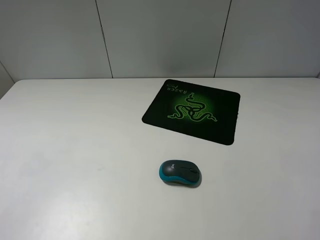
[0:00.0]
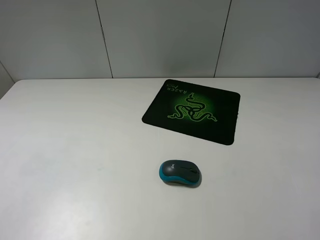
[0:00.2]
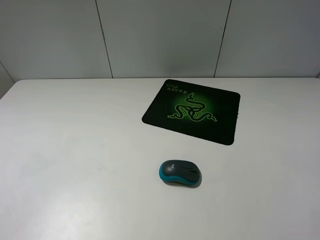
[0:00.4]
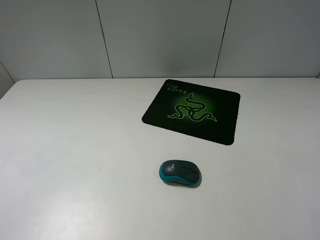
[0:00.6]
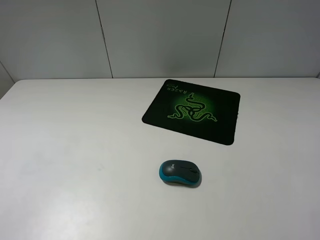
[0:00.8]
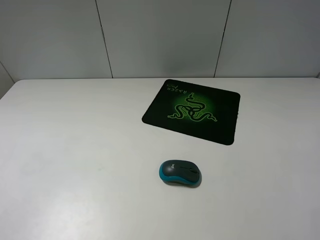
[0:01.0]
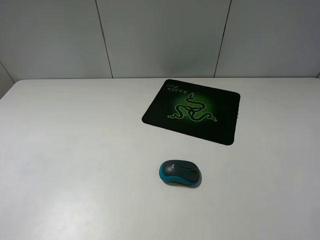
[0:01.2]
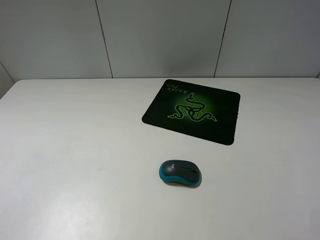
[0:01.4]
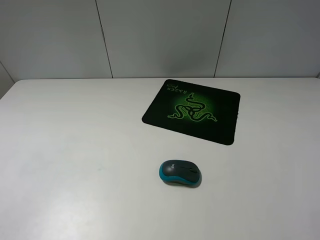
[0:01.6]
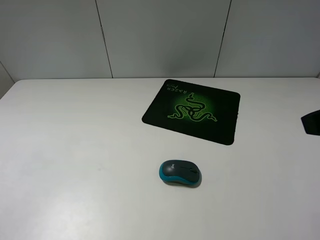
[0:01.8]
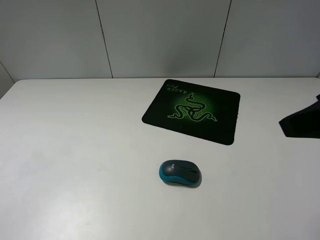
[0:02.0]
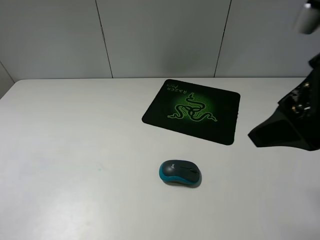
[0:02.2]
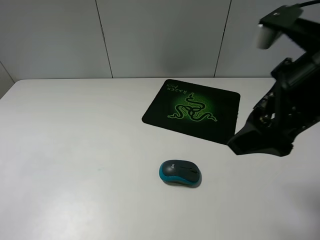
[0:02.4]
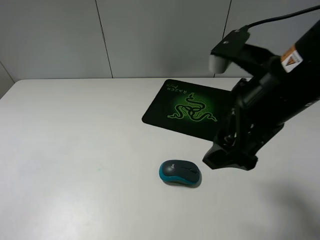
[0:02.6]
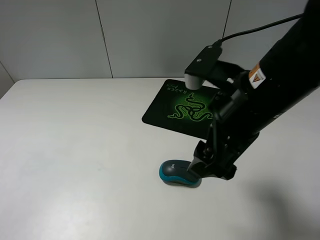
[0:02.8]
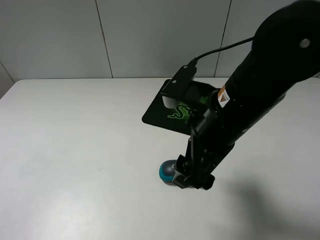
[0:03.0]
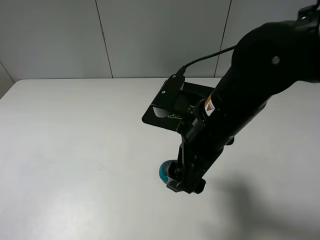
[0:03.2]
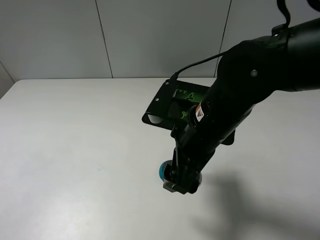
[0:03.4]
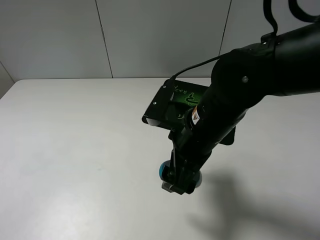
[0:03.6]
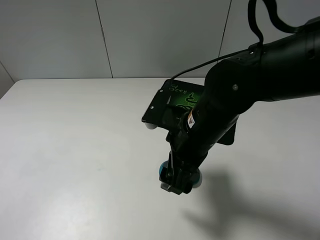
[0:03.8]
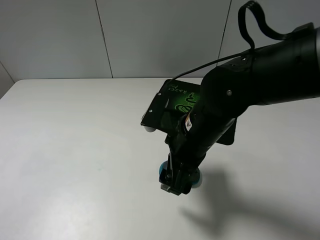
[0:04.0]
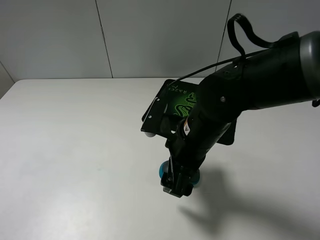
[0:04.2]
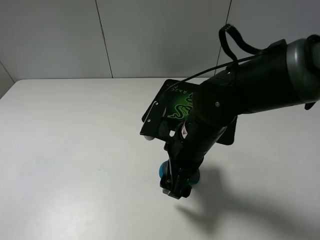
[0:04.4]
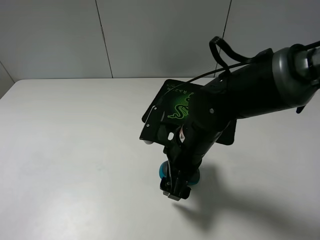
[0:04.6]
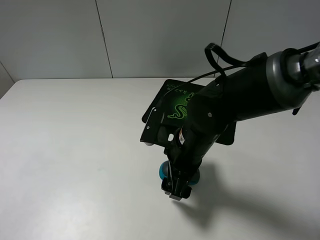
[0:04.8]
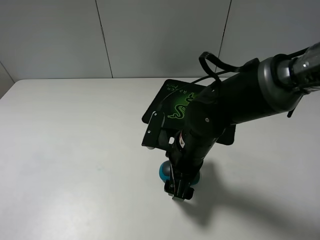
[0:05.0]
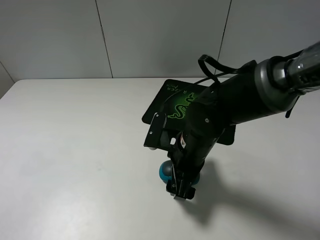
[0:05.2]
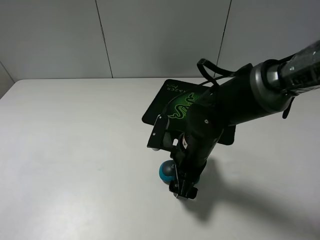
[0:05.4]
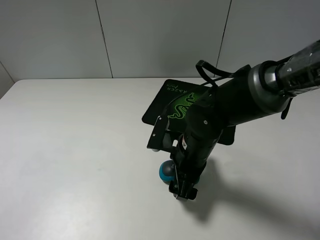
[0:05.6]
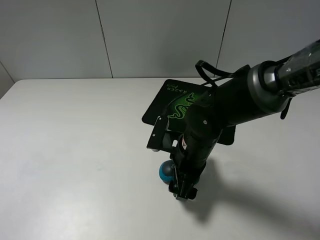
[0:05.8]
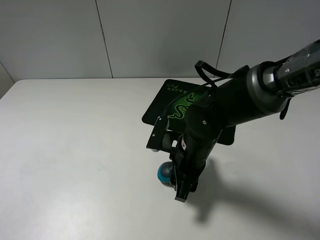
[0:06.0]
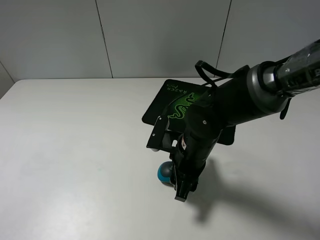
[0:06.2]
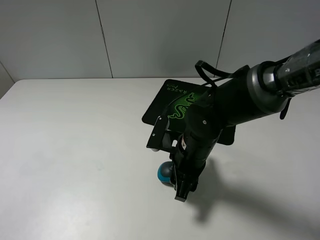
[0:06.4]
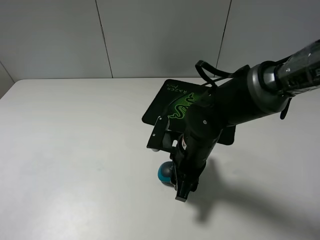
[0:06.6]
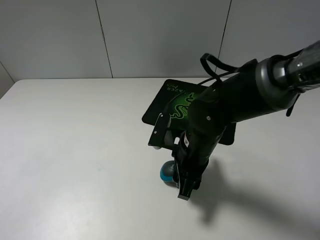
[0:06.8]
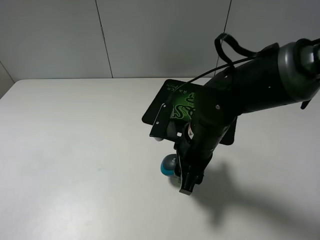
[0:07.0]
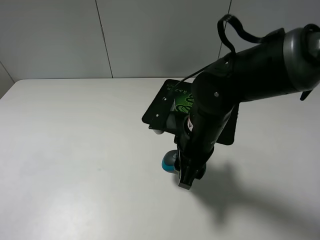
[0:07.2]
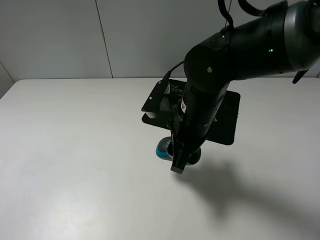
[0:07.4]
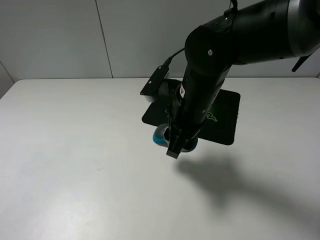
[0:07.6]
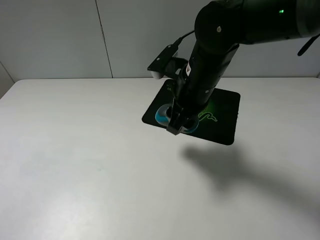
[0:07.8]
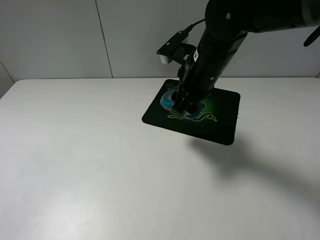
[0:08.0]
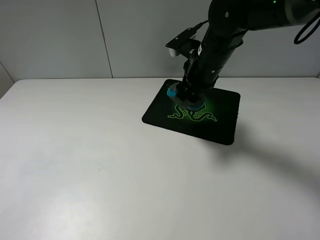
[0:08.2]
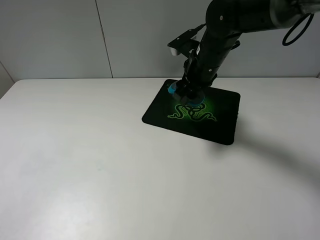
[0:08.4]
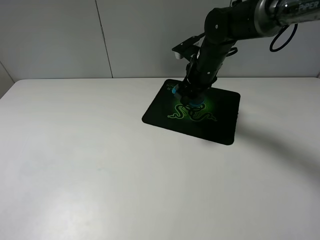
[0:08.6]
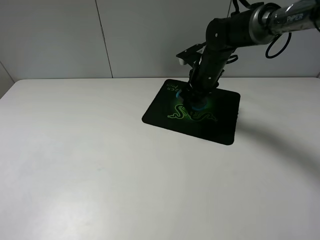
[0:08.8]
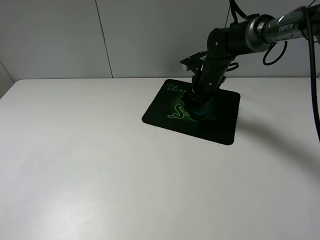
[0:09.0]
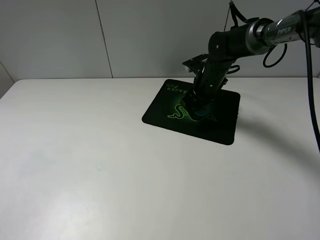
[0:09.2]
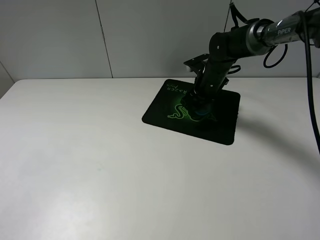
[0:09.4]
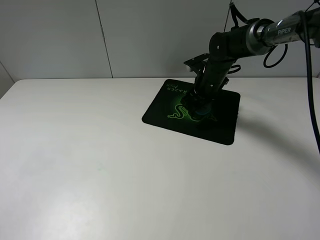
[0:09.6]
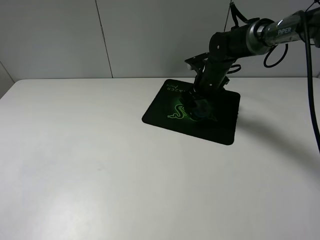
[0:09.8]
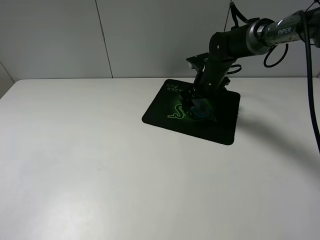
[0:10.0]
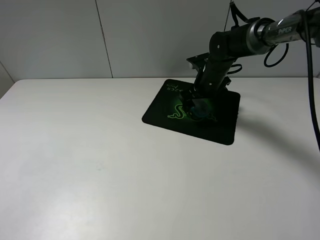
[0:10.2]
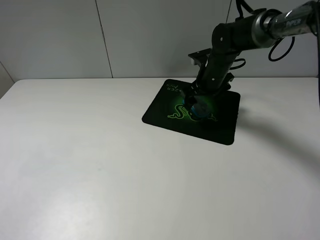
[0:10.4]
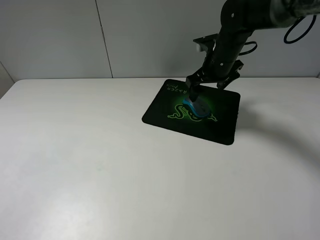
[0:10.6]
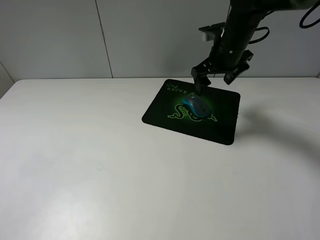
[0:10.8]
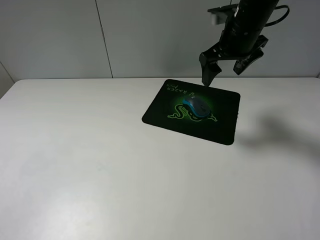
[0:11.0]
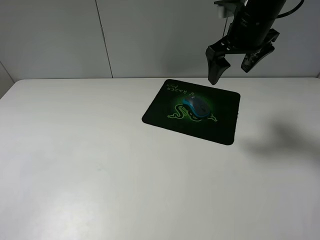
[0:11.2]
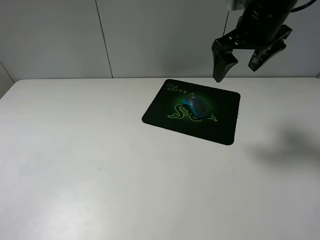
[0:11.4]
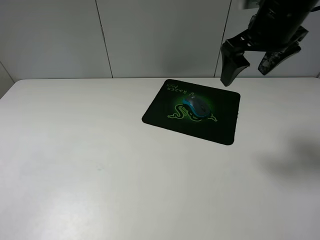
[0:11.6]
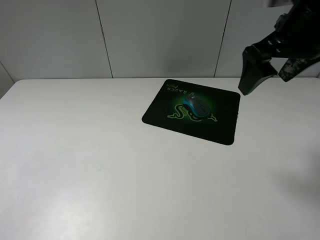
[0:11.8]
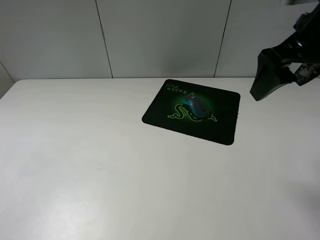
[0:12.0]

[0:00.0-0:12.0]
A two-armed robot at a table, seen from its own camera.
Step, 0:00.0 to 0:06.6: Grasp the mouse with the right gripper.
Step, 0:06.8 to 0:10.0: Place the mouse on the mouse mat with the right gripper.
0:01.6 to 0:03.0: The right gripper moves to the left, downward and forward, some 25 cm.
0:03.0 to 0:04.4: The right gripper goes approximately 10 cm downward.
0:04.4 to 0:06.0: The right gripper closes up.
0:06.0 to 0:07.6: The right gripper shifts about 10 cm upward.
0:07.6 to 0:09.0: The right gripper travels forward and to the right by some 20 cm.
0:09.0 to 0:10.4: The right gripper opens up.
0:10.4 to 0:12.0: The right gripper heads backward and upward, covering about 30 cm.

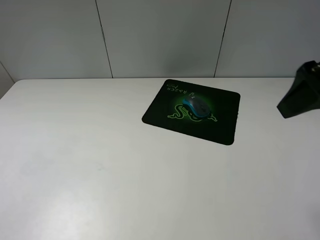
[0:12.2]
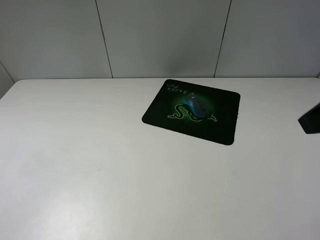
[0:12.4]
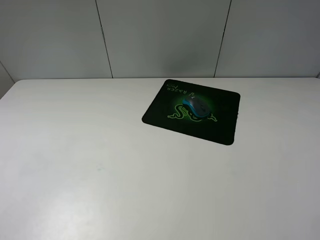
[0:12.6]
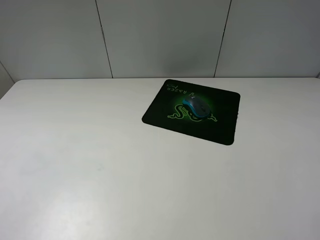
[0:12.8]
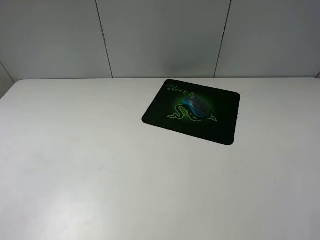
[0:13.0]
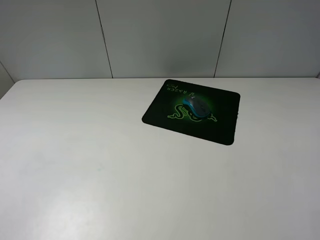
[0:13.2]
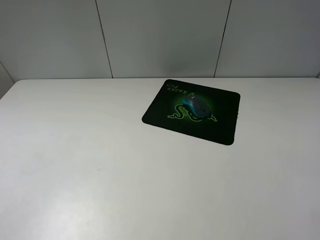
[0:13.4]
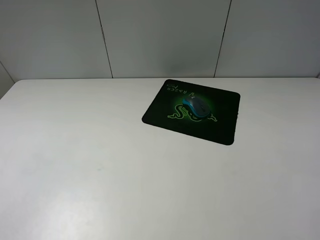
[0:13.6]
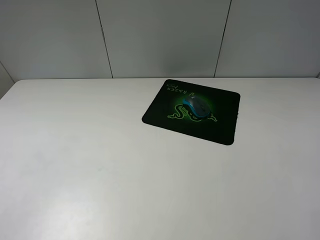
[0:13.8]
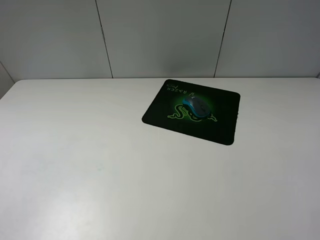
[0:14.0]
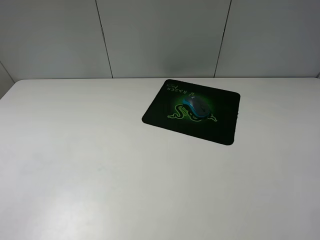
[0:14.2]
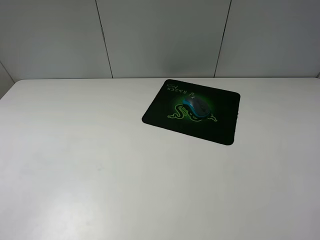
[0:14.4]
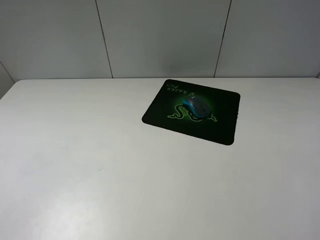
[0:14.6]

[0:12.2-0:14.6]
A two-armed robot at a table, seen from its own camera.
0:12.2 to 0:13.4: The right gripper is displaced backward and downward by about 20 cm.
0:13.4 to 0:14.6: Both grippers stay about where they are.
